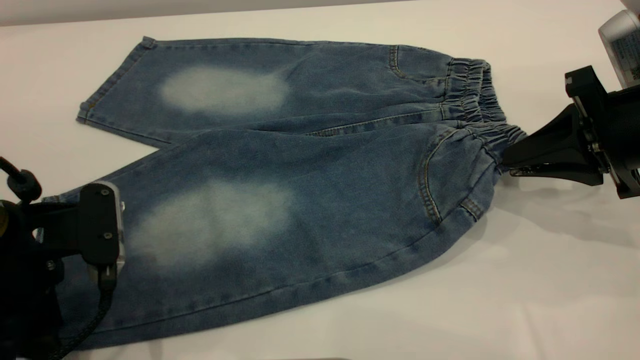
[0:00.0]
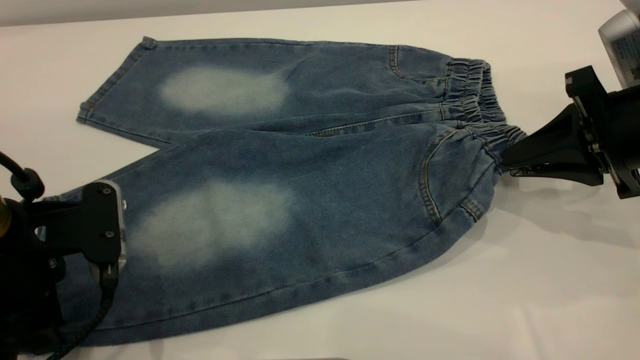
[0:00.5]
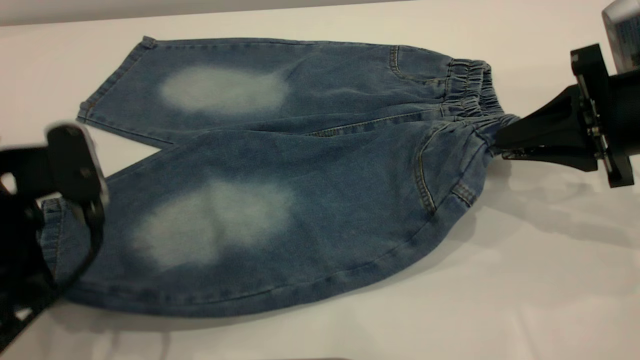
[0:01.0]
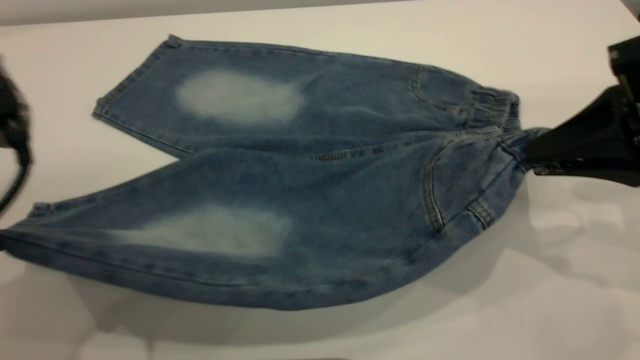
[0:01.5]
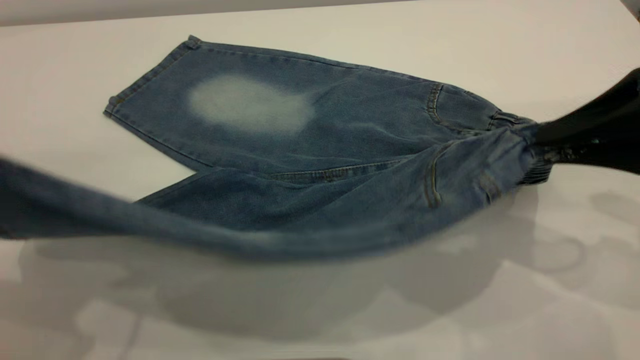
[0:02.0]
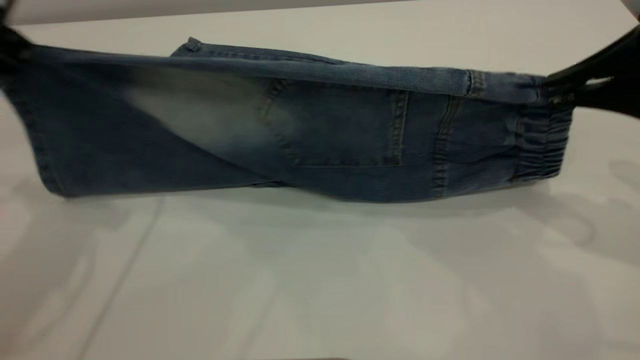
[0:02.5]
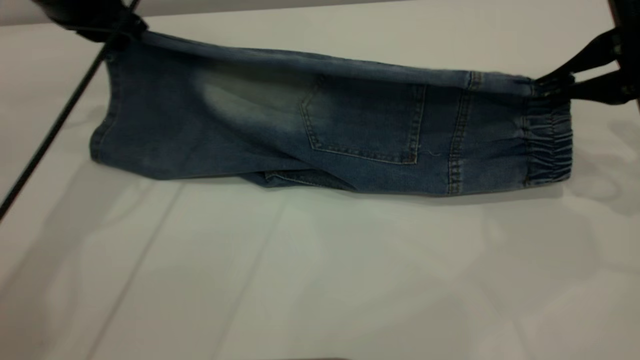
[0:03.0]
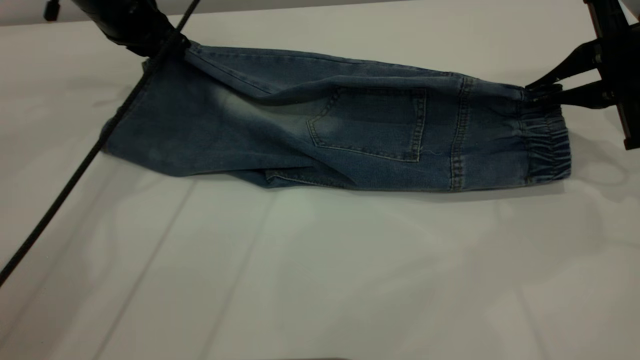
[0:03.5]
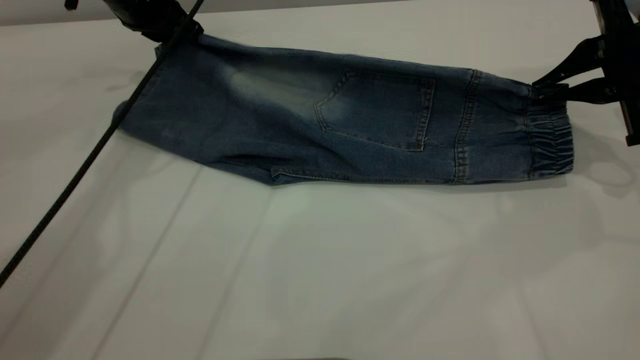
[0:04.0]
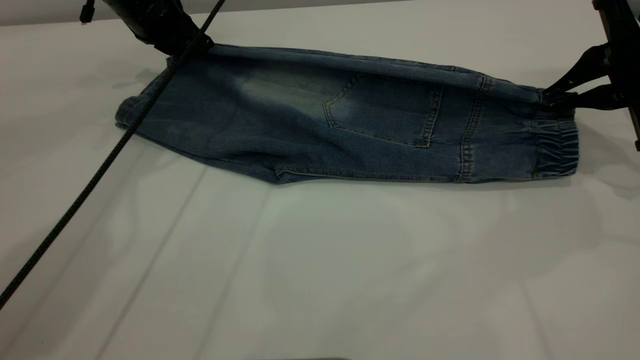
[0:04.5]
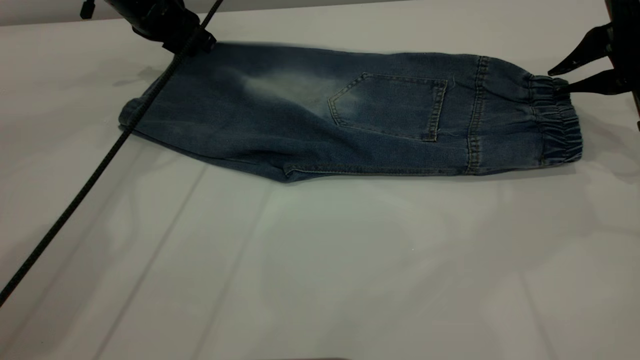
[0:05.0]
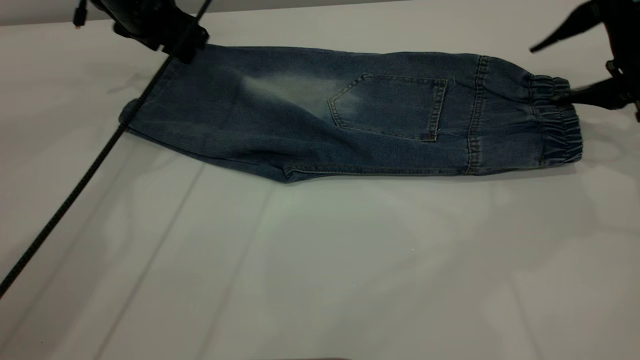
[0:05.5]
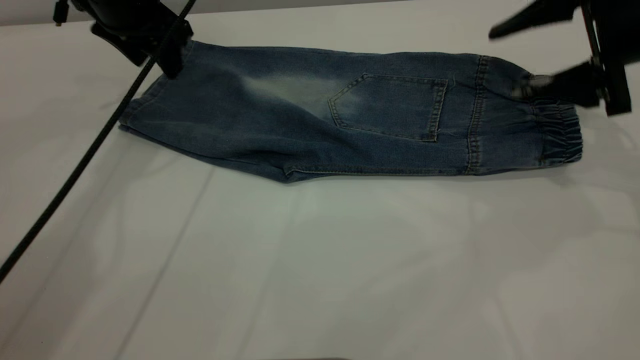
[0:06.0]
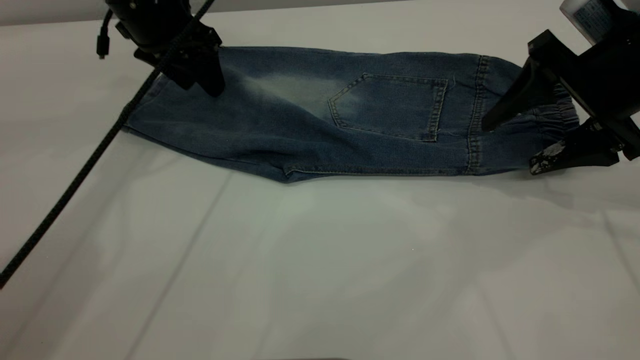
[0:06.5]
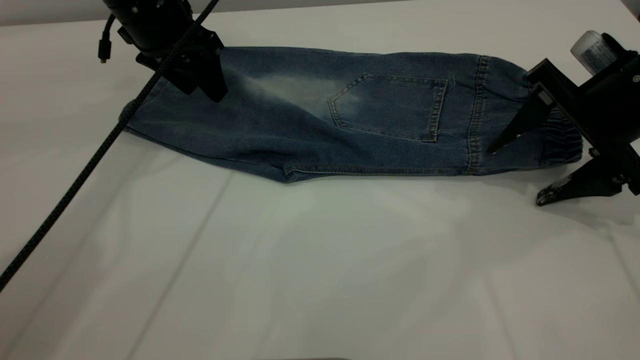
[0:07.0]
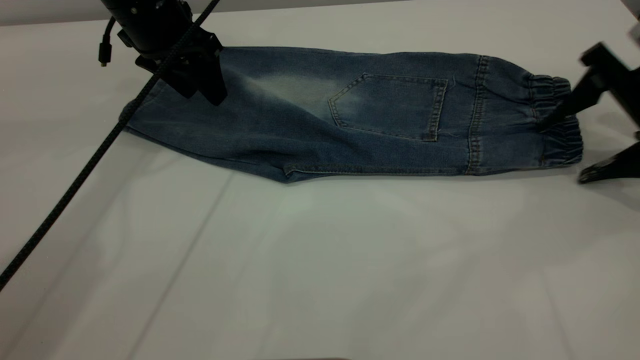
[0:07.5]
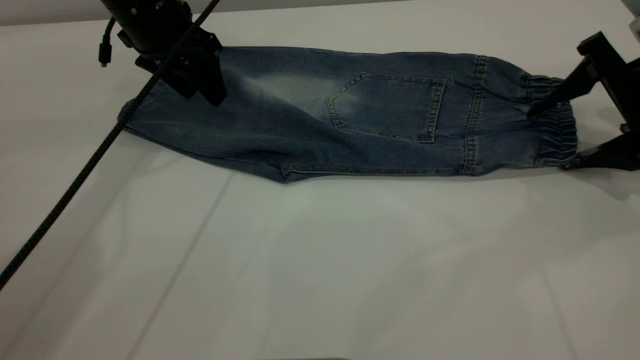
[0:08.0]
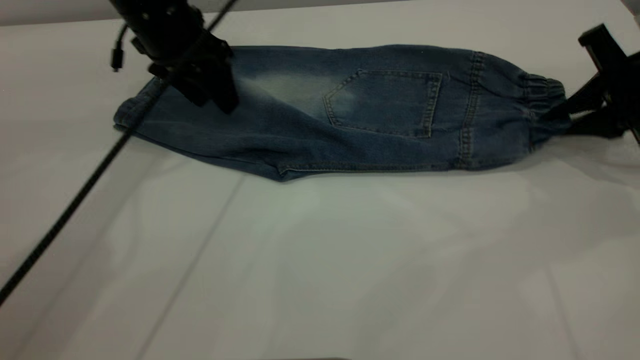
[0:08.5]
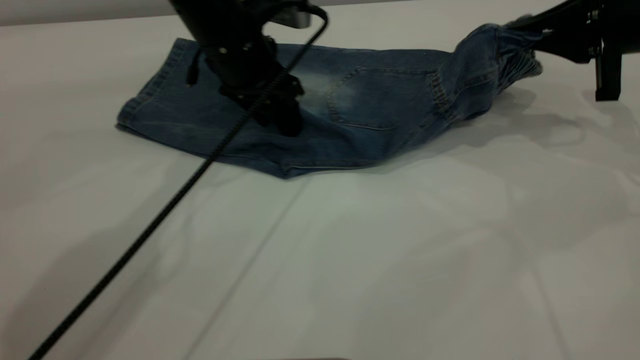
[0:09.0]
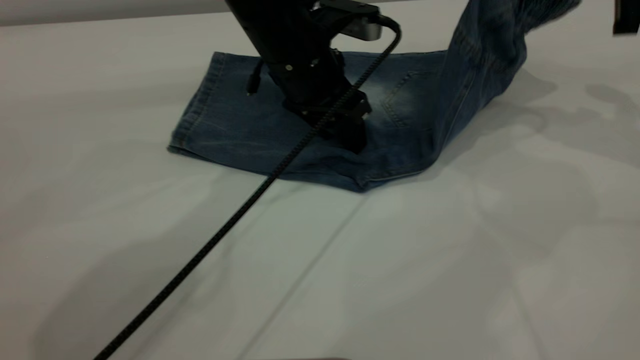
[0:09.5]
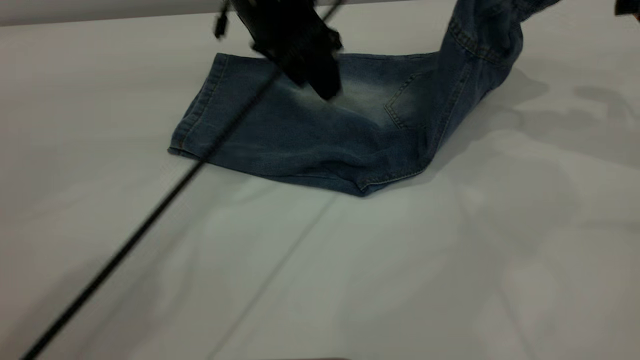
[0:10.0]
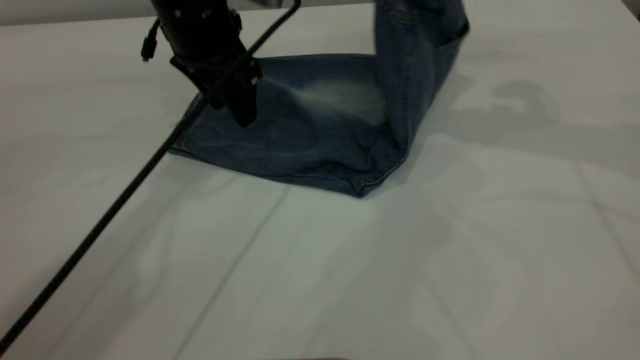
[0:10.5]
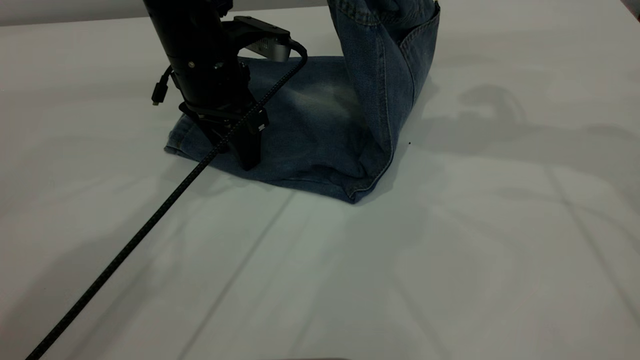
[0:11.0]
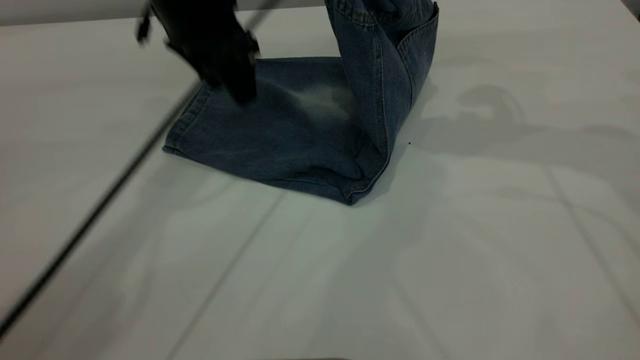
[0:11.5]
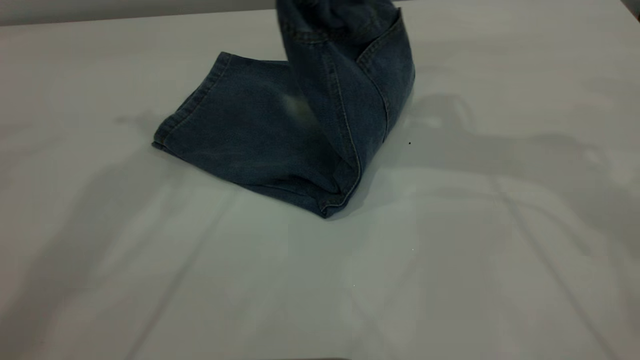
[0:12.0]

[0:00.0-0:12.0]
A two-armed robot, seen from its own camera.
Step, 0:00.0 to 0:05.5: Fold the bottom of the pants upward.
0:00.0 to 0:02.0: The right gripper goes some 10 cm upward and backward, while the left gripper goes roughly 15 cm upward, and closes its fingers.
0:02.0 to 0:04.0: The left gripper is displaced forward by some 30 cm. The right gripper moves forward, approximately 15 cm.
0:04.0 to 0:06.0: The right gripper opens. Meanwhile the left gripper opens.
0:06.0 to 0:08.0: The right gripper goes some 5 cm downward.
0:08.0 to 0:10.0: The left gripper is displaced to the right by about 10 cm. The right gripper goes roughly 10 cm upward, and closes its fingers.
0:10.0 to 0:12.0: The right gripper moves to the left, roughly 15 cm. The left gripper is displaced upward and to the left by about 25 cm.

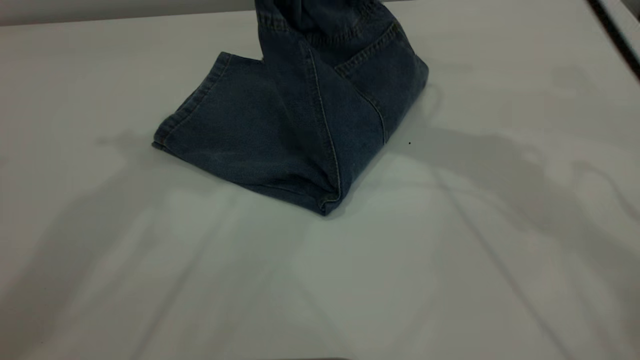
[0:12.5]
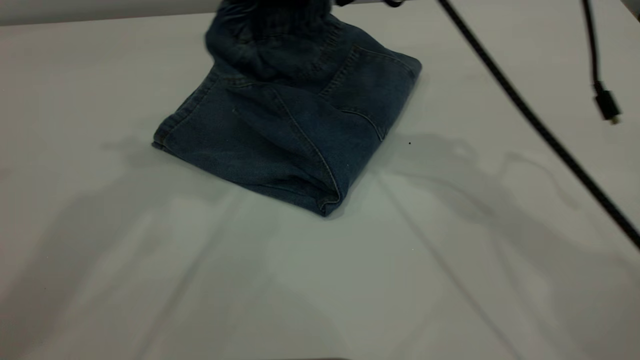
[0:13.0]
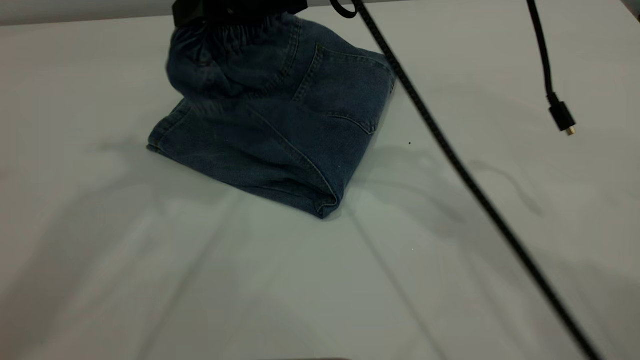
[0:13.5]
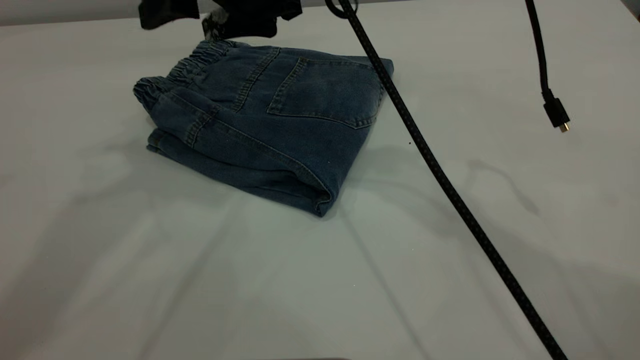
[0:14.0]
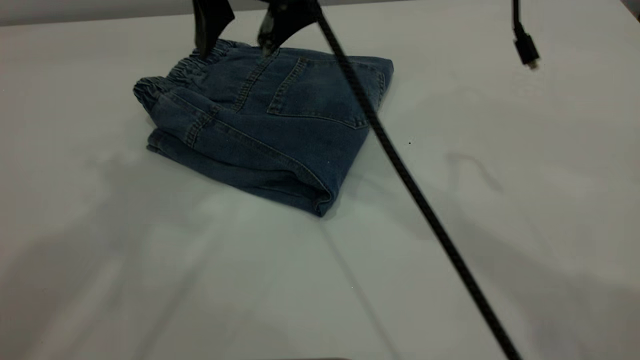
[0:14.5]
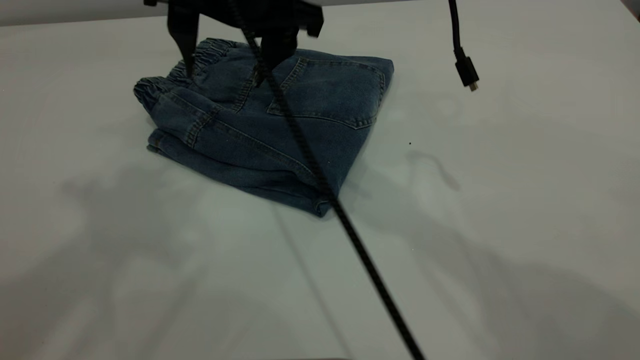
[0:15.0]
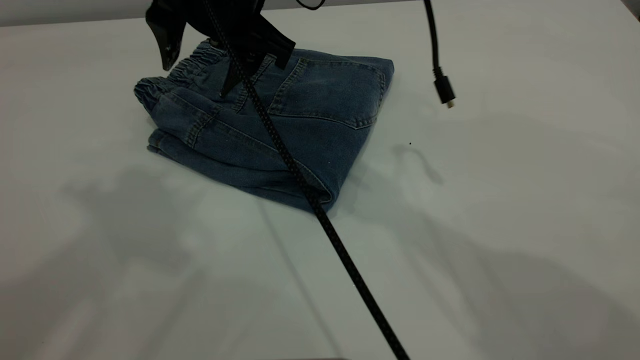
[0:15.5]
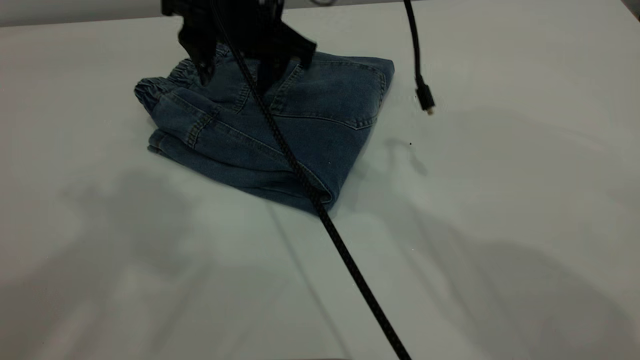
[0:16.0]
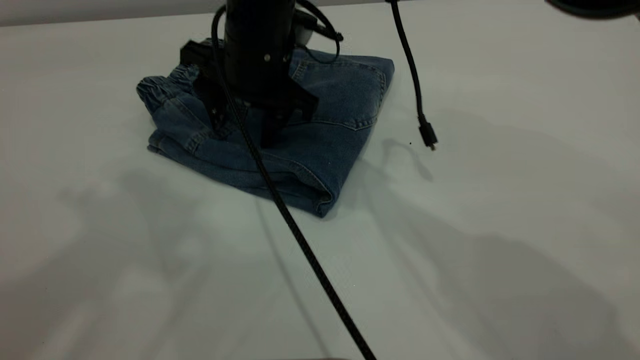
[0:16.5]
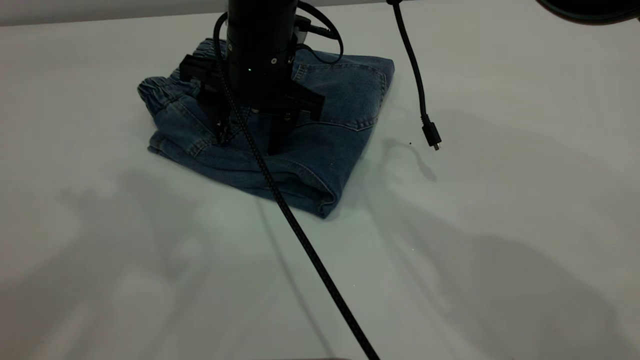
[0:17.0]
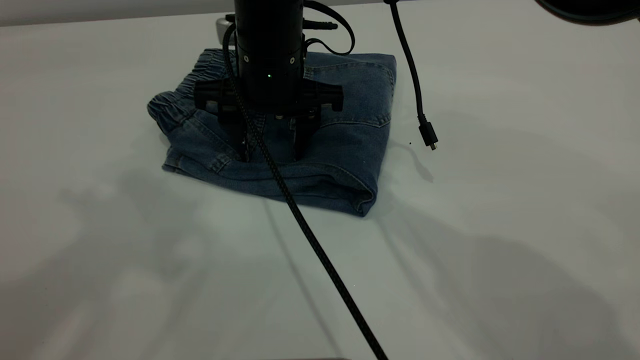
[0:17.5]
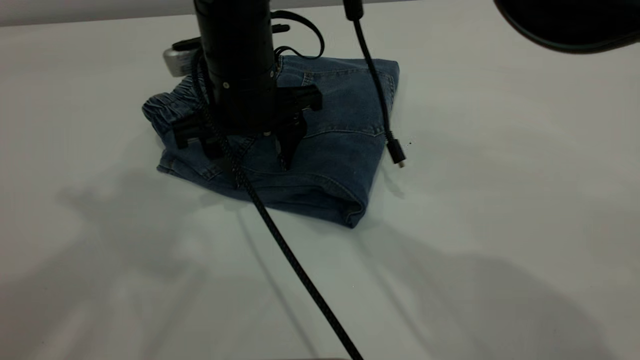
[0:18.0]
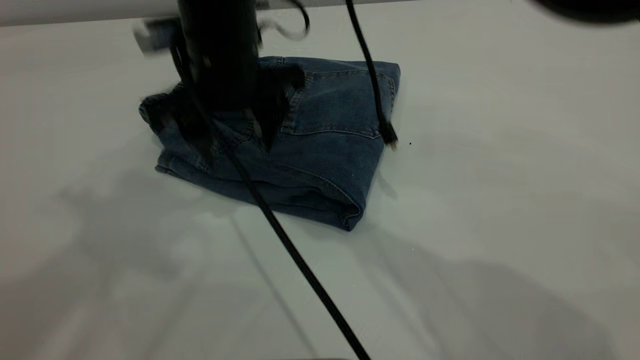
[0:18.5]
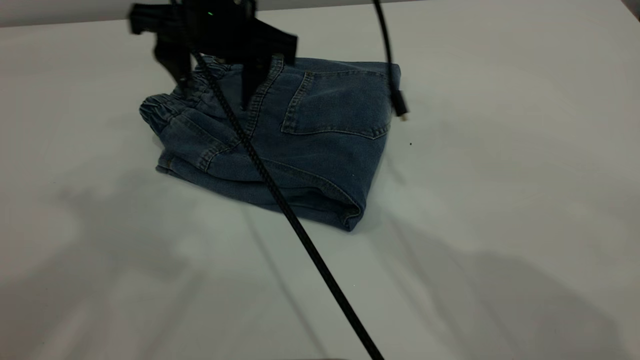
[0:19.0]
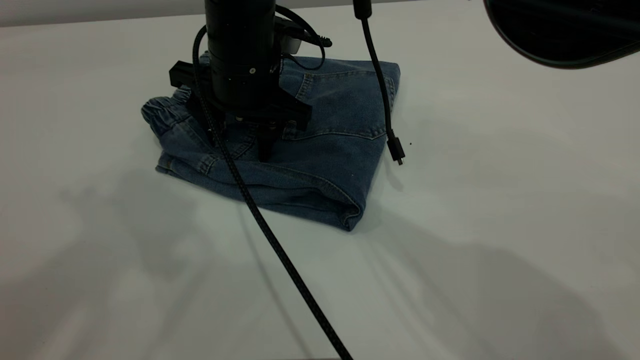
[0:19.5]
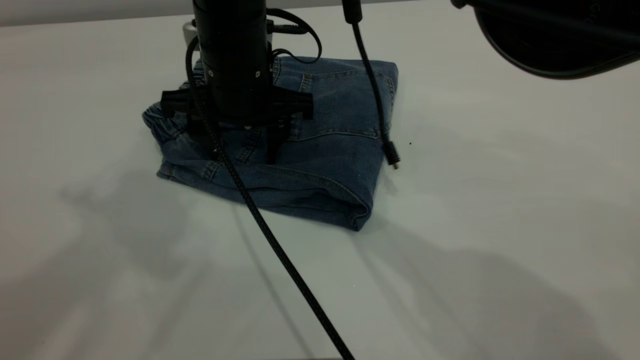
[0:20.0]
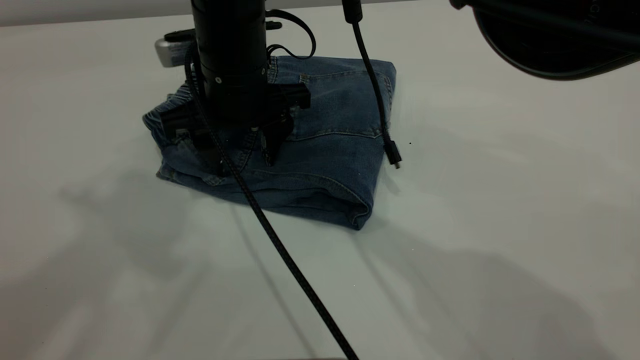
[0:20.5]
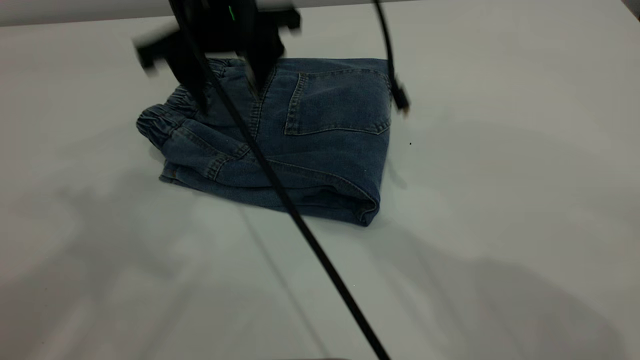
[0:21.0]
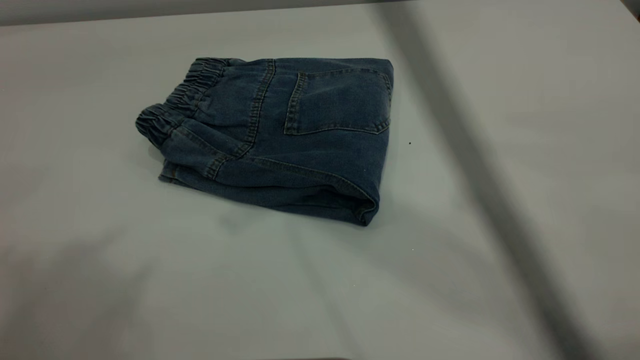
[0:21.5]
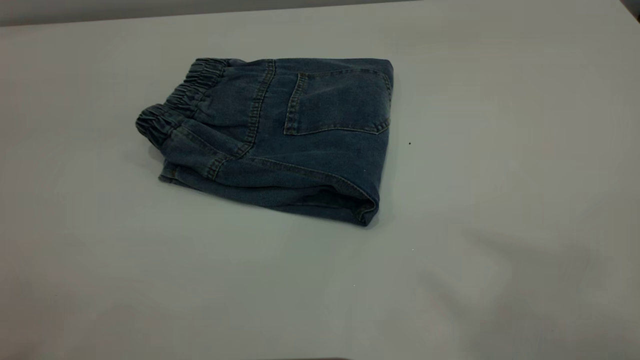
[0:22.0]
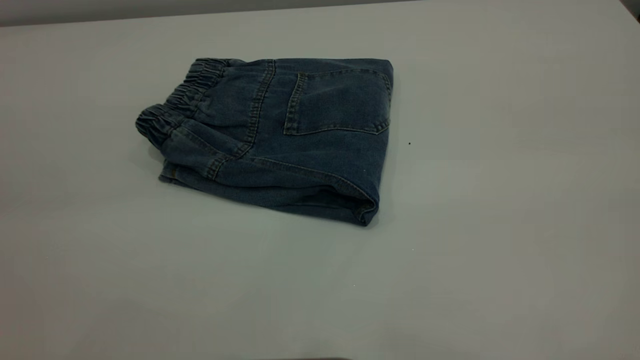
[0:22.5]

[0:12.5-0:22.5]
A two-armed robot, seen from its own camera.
0:12.5 to 0:14.5: The left gripper goes some 5 cm upward and backward. Meanwhile the right gripper goes roughly 10 cm to the left, and opens up.
0:14.5 to 0:16.5: The right gripper goes about 10 cm downward.
0:16.5 to 0:18.5: The right gripper shifts by roughly 5 cm.
0:18.5 to 0:20.5: The right gripper moves downward, roughly 5 cm.
0:20.5 to 0:22.5: The left gripper goes some 20 cm backward and downward. The right gripper is displaced to the right, upward and backward by approximately 60 cm.
